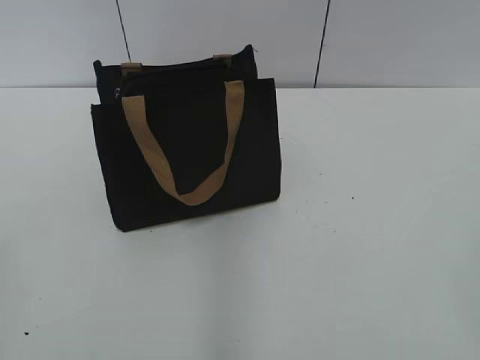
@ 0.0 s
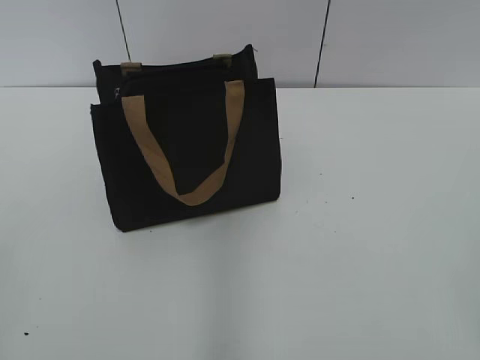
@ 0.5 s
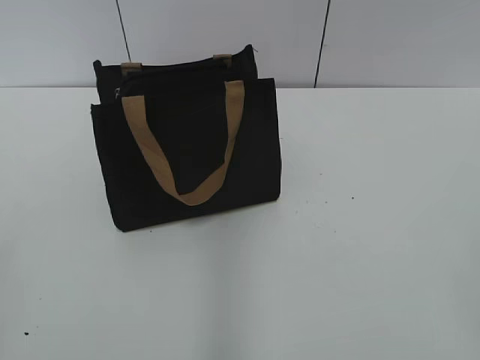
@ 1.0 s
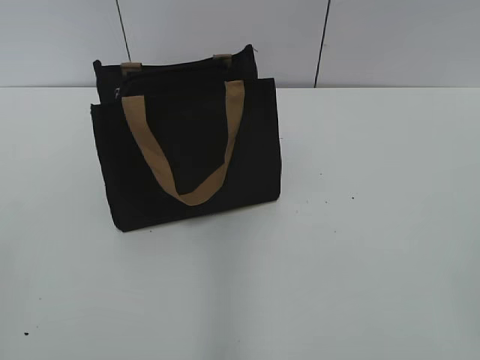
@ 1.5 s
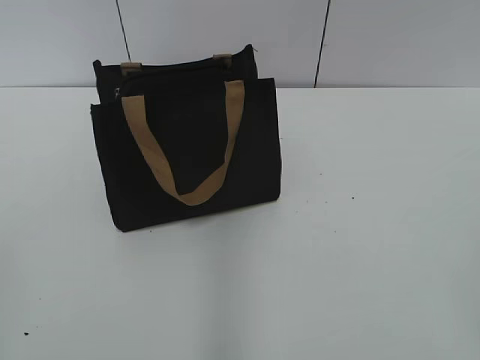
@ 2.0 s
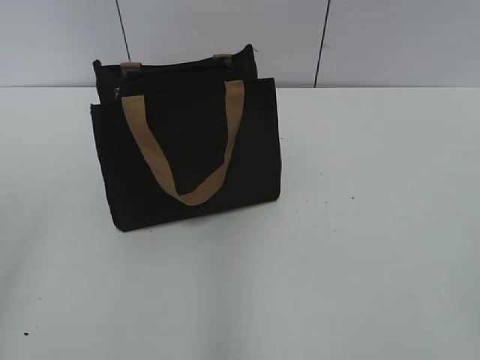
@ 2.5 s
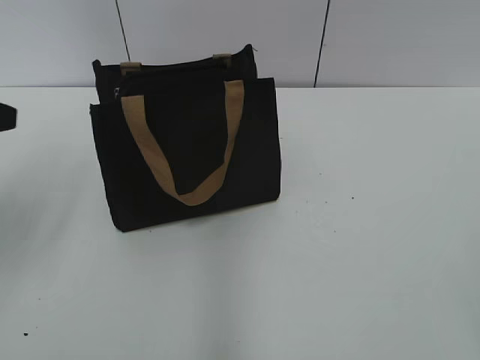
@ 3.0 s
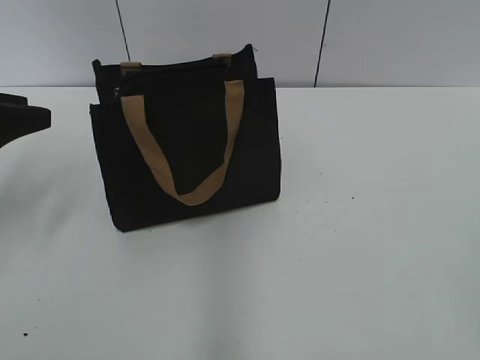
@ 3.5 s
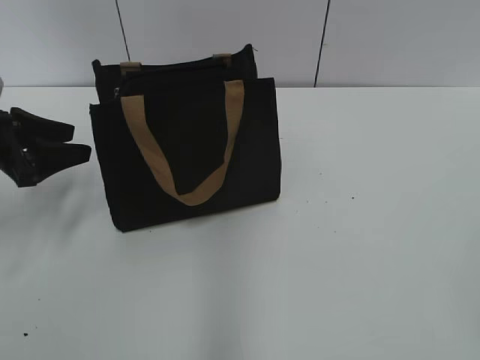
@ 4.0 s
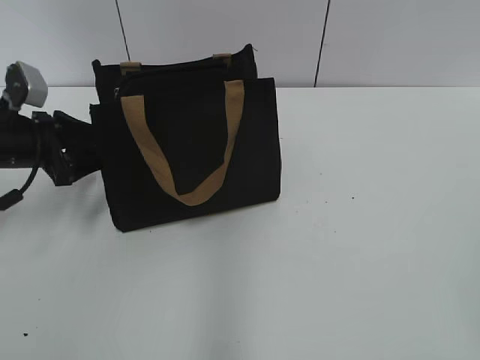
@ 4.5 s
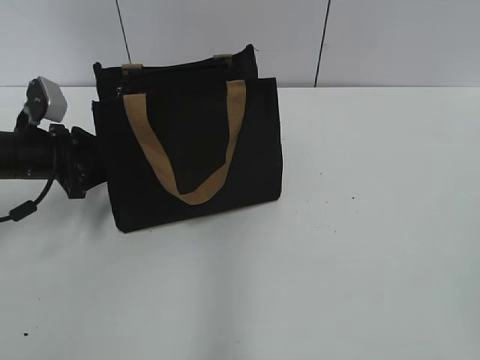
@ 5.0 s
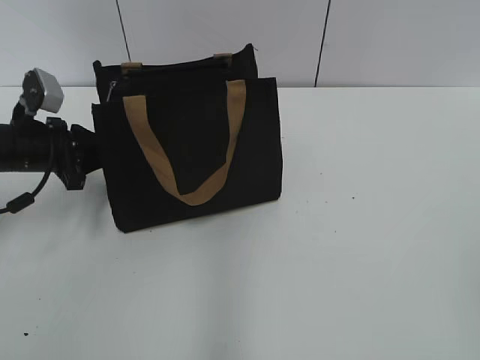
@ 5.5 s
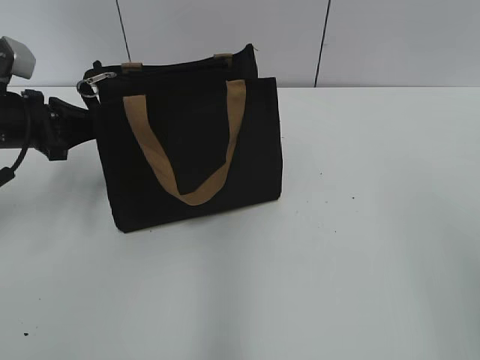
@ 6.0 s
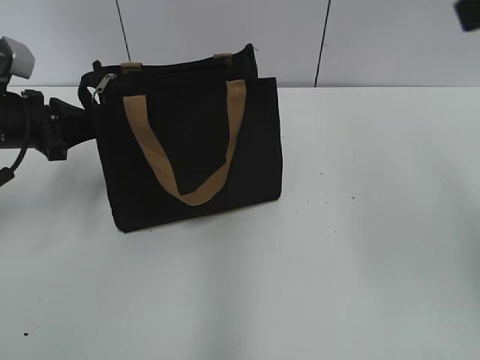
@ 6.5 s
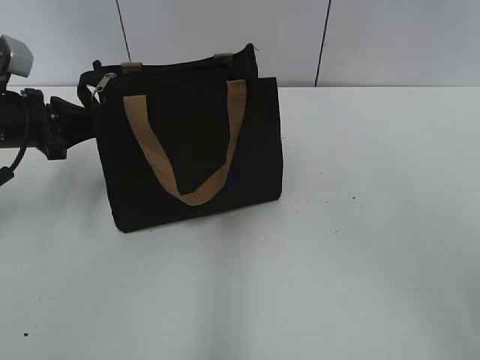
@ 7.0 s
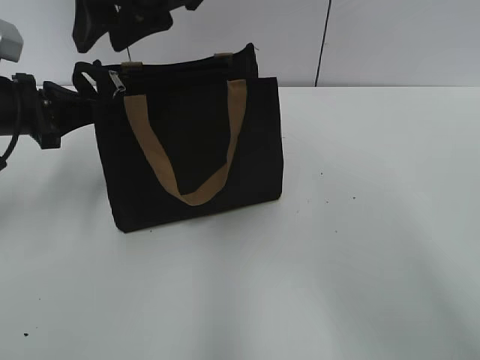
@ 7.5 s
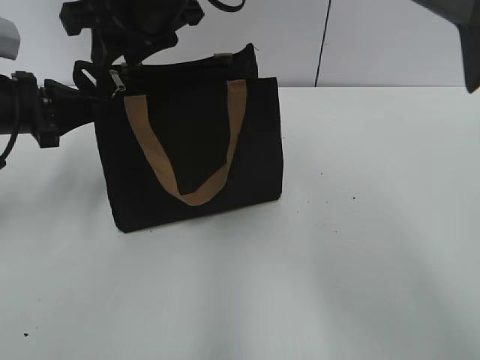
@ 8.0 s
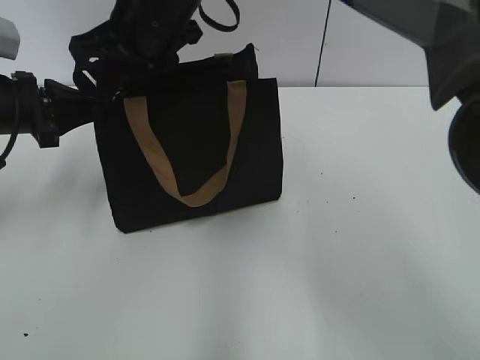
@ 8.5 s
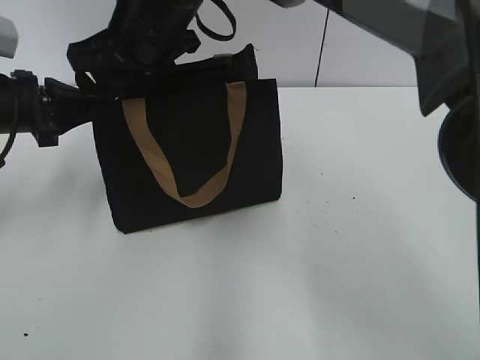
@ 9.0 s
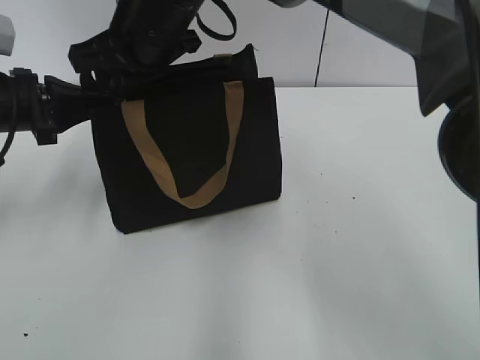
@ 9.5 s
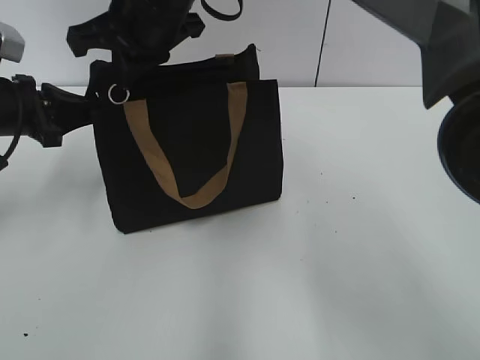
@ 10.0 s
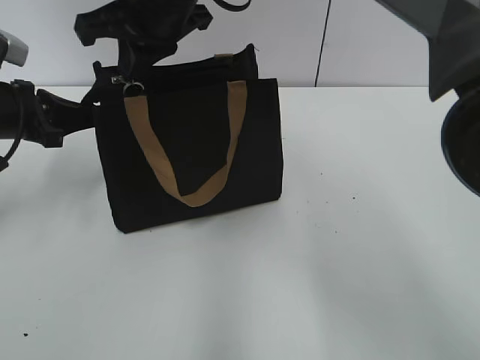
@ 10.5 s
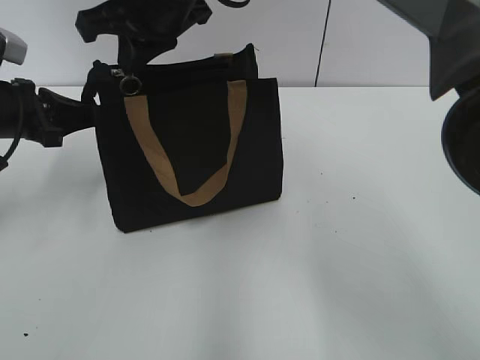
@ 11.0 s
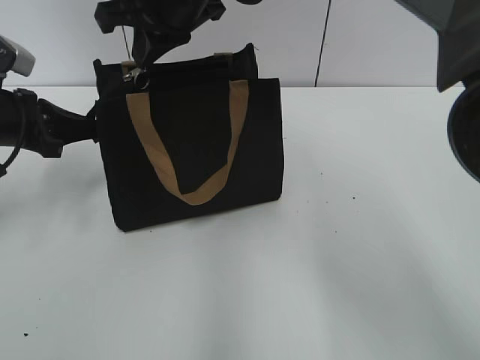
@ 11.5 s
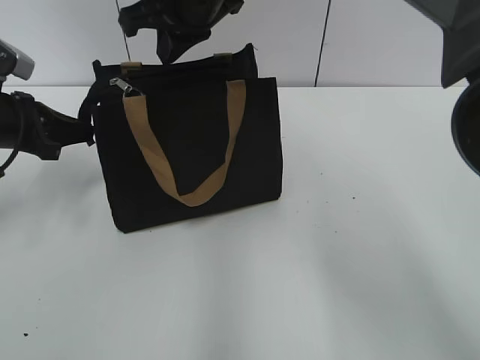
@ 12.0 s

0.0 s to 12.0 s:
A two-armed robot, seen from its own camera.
2.0 to 4.0 s: The left gripper is displaced forward by approximately 30 cm, and opens up.
4.0 to 6.0 s: The left gripper closes up.
6.0 to 8.0 s: The right gripper shifts approximately 50 cm to the left and forward.
8.0 to 10.0 s: The right gripper closes its fingers.
10.0 to 12.0 s: The grippers make only small movements.

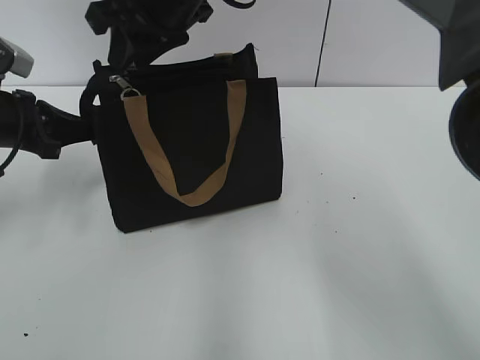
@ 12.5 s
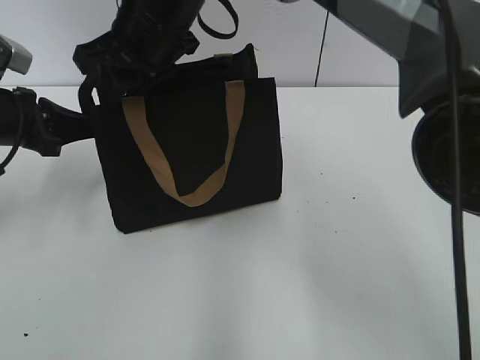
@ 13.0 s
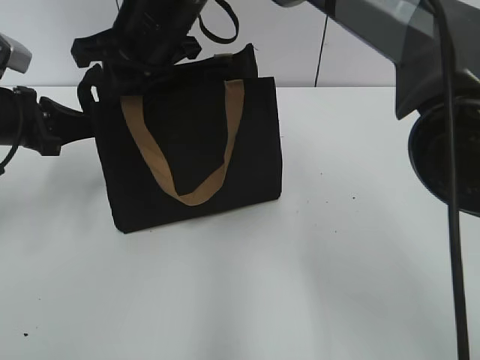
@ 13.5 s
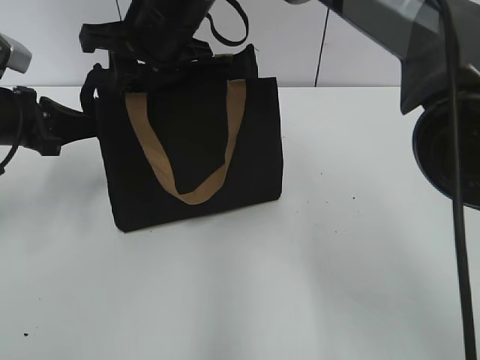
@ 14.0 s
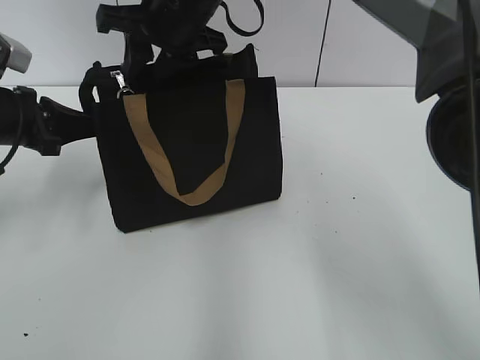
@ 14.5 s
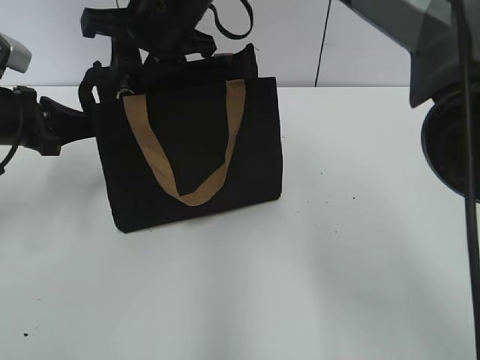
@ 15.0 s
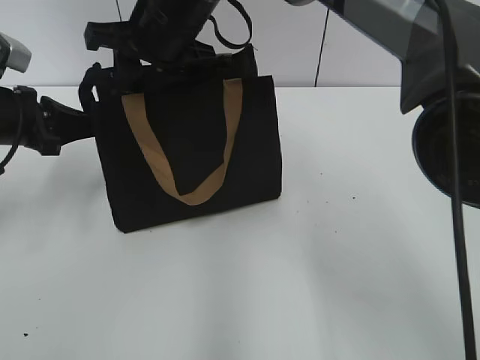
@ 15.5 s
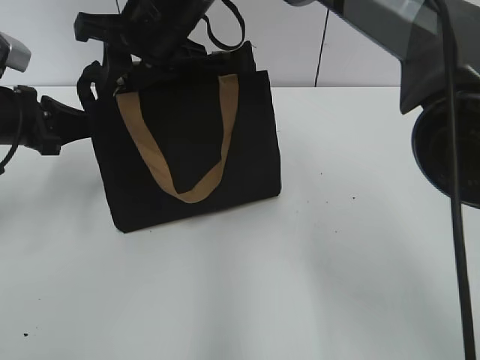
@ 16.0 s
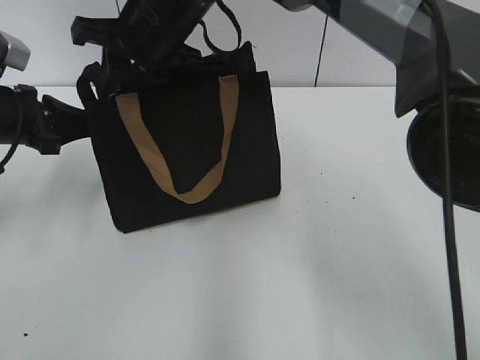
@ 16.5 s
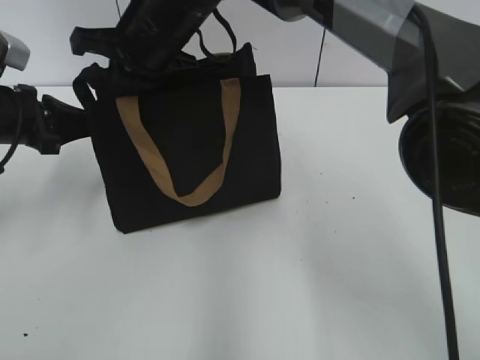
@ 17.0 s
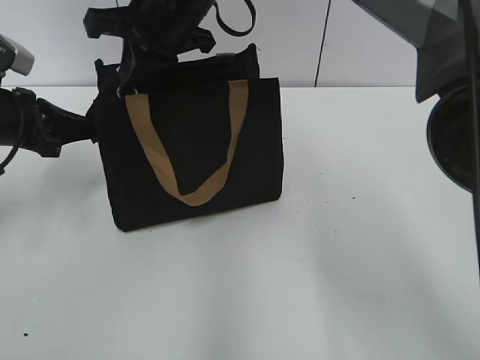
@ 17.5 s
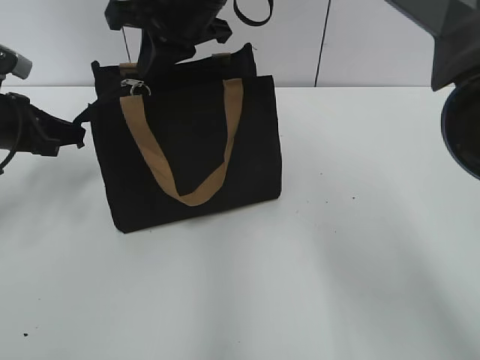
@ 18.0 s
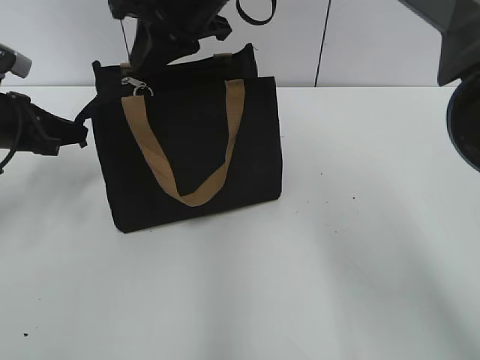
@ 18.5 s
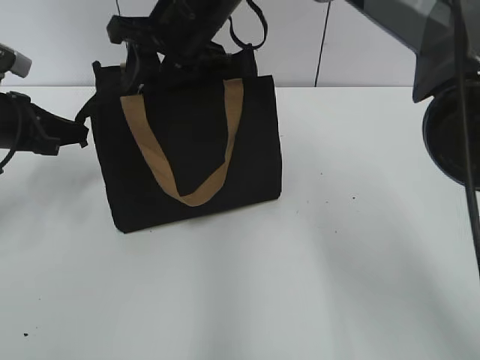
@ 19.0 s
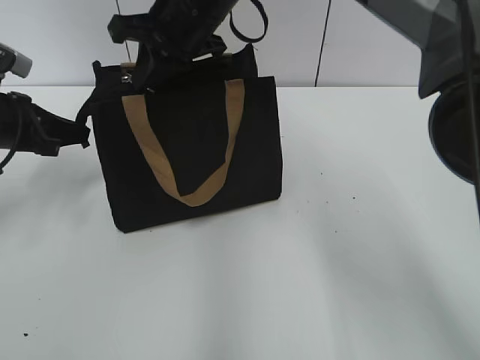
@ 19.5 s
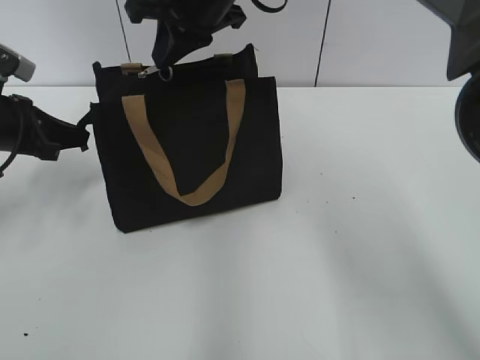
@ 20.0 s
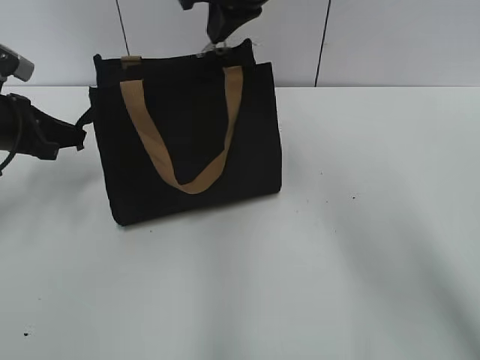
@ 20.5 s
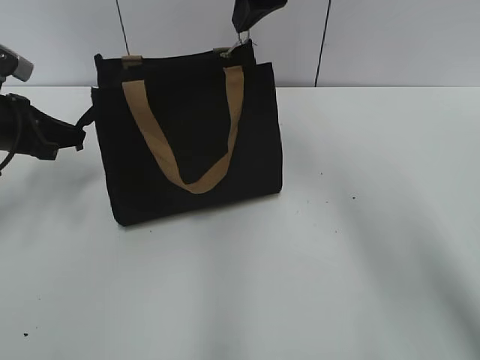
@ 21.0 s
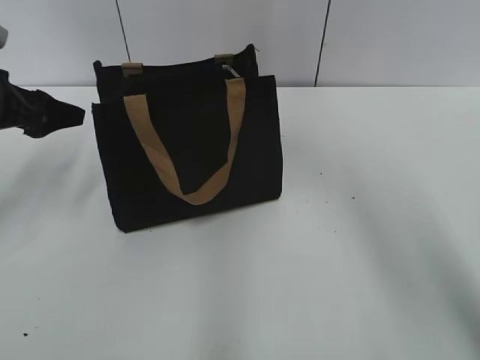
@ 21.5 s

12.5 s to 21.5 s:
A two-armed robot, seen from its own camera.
Step, 12.5 to 21.0 s: Zip up the bag with your right hand.
14.5 to 17.0 s: The right gripper closes its fingers.
17.0 to 19.5 s: The right gripper opens and closes again.
19.5 to 21.5 s: The right gripper goes roughly 15 cm to the right and upward, and opens its fingers; the left gripper opens.

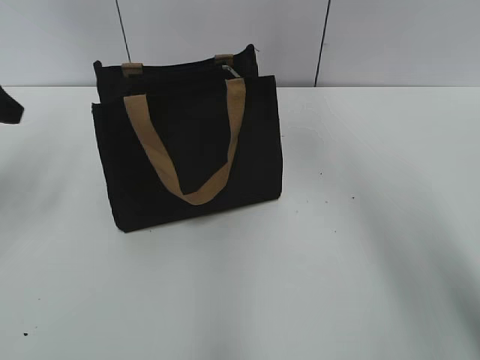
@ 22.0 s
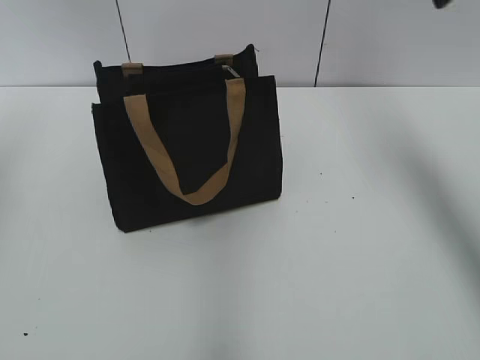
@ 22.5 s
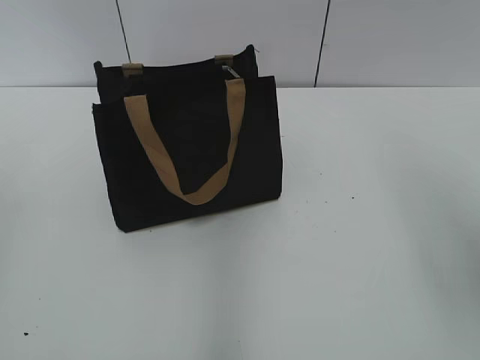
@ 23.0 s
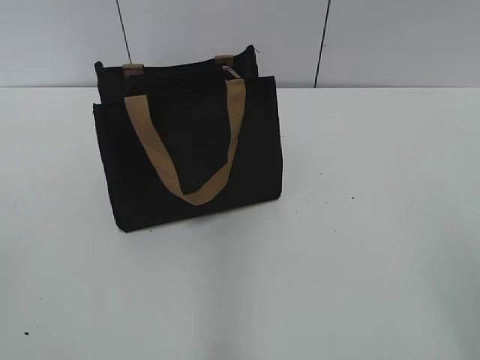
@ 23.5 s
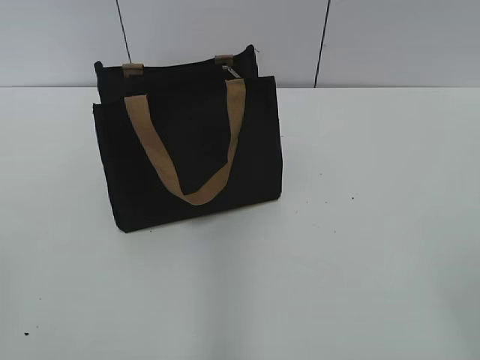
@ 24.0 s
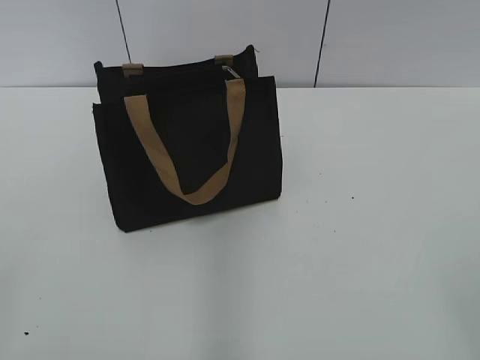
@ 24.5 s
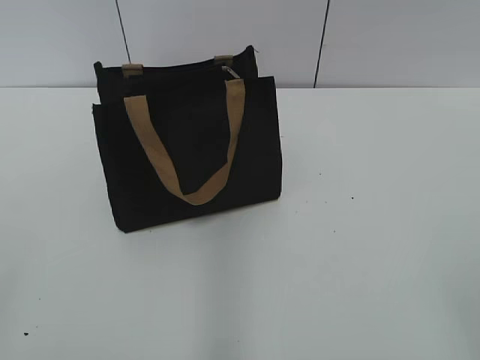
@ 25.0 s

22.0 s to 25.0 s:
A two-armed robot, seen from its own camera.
22.0 to 23.5 s: The right gripper shifts roughly 40 cm backward and to the right. The left gripper heads backward, covering about 30 cm.

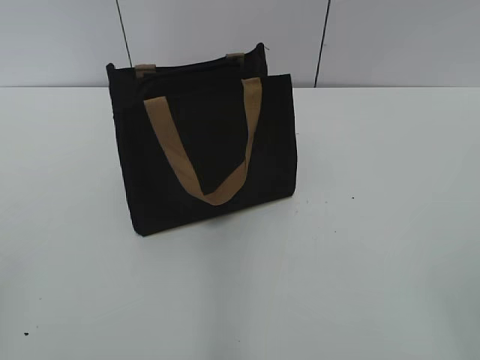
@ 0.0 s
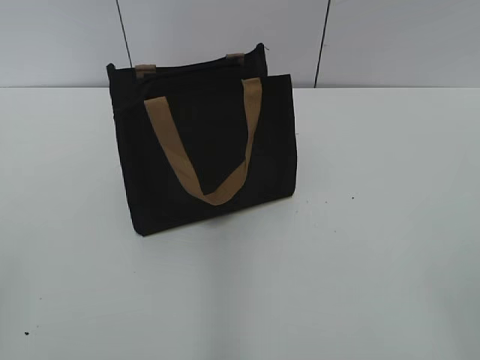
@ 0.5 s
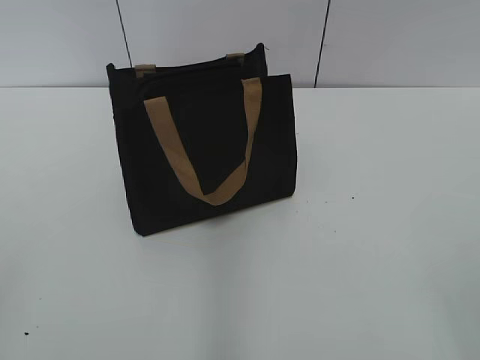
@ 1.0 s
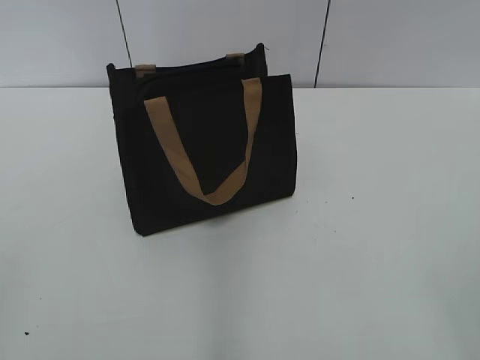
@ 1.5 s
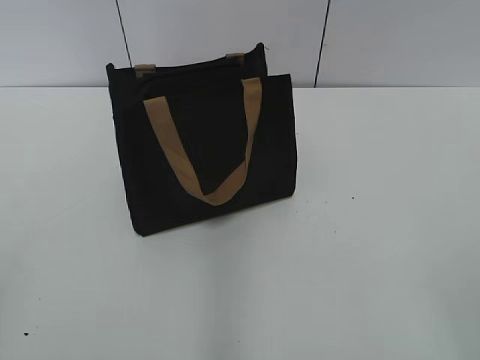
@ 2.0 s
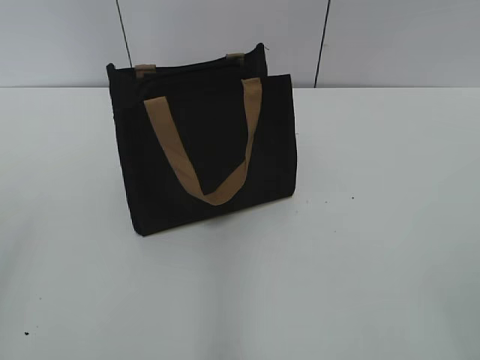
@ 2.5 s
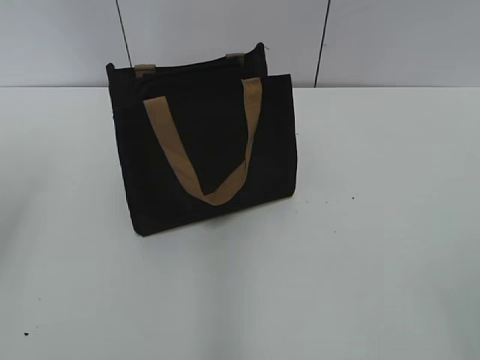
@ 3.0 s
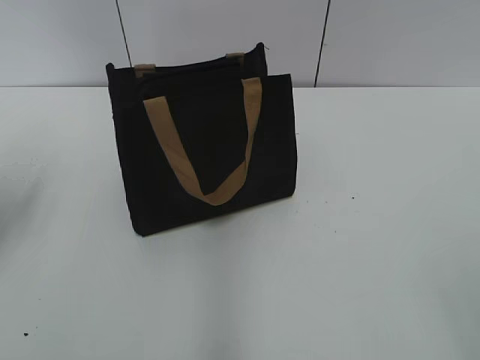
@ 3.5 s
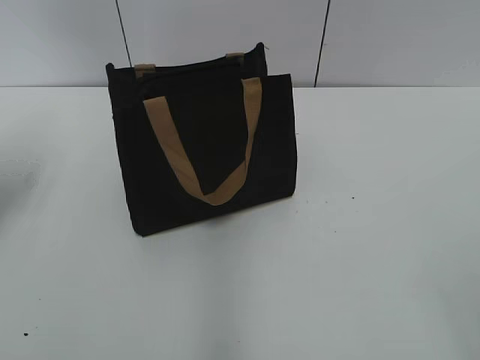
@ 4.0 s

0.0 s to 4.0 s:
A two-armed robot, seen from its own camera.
2.0 to 4.0 s: The left gripper heads forward, covering approximately 30 cm.
